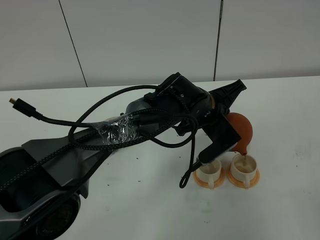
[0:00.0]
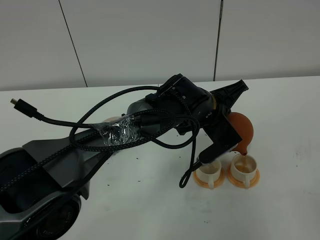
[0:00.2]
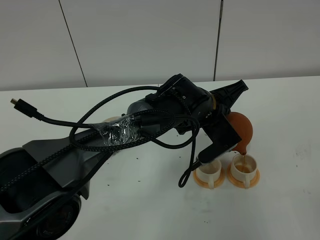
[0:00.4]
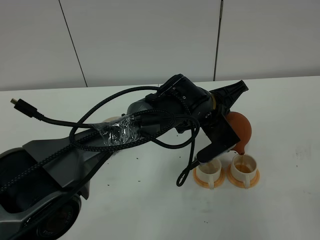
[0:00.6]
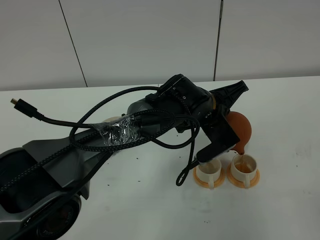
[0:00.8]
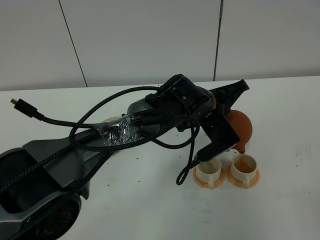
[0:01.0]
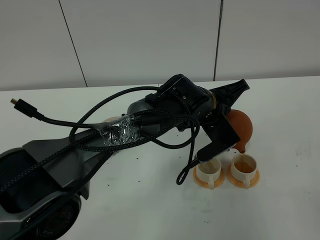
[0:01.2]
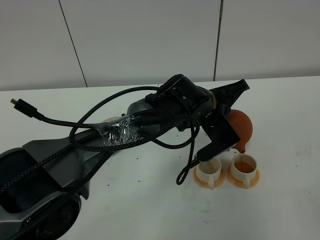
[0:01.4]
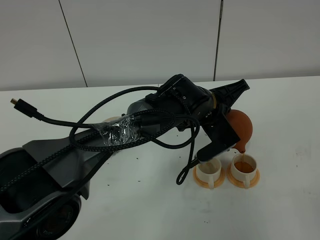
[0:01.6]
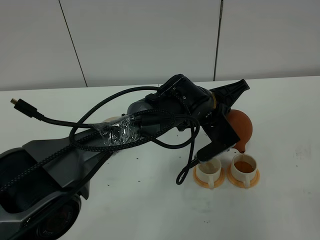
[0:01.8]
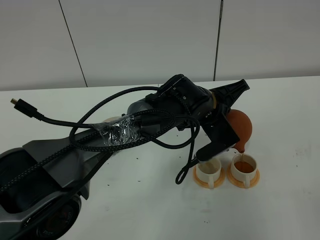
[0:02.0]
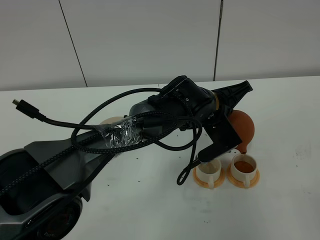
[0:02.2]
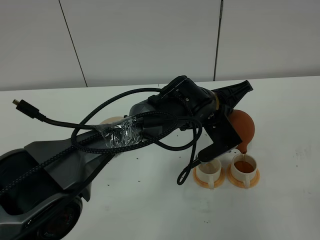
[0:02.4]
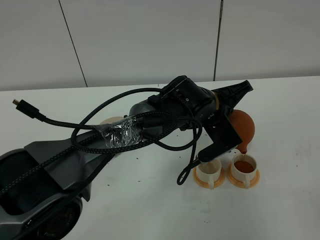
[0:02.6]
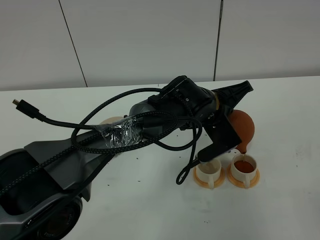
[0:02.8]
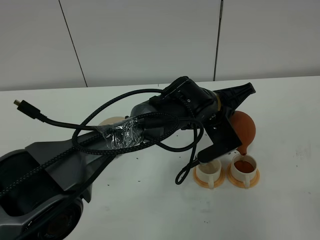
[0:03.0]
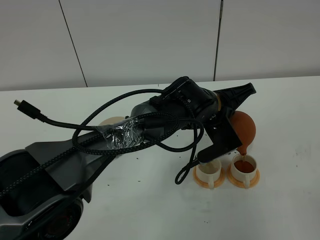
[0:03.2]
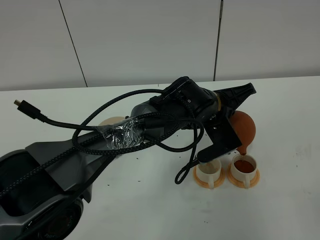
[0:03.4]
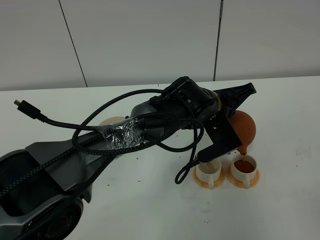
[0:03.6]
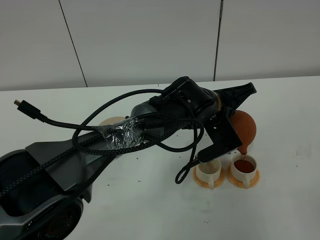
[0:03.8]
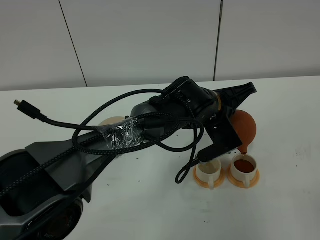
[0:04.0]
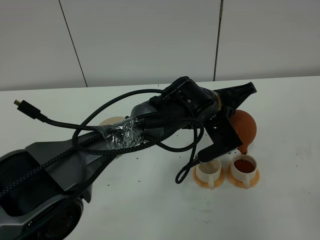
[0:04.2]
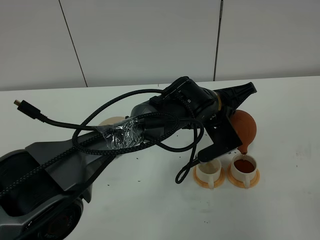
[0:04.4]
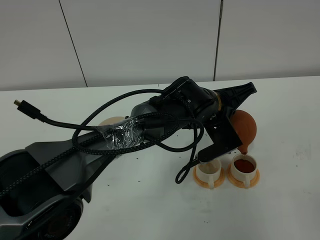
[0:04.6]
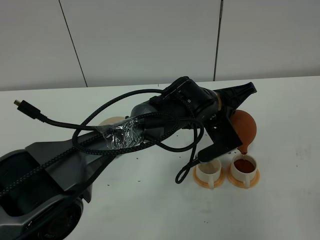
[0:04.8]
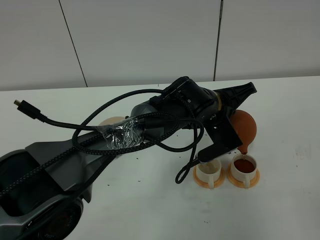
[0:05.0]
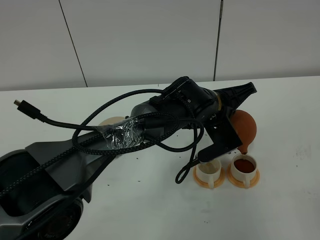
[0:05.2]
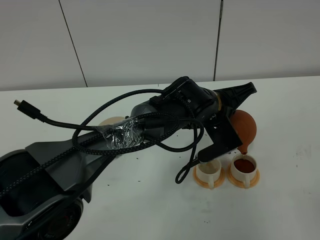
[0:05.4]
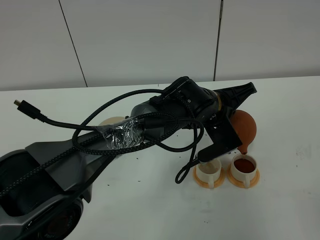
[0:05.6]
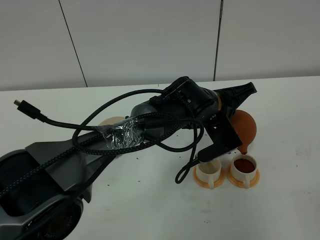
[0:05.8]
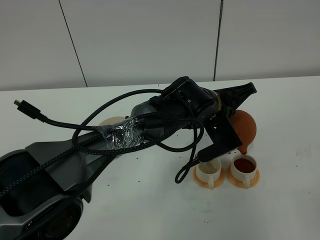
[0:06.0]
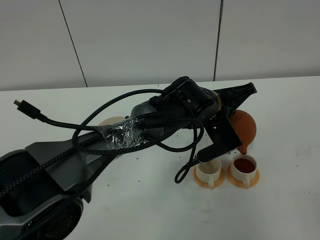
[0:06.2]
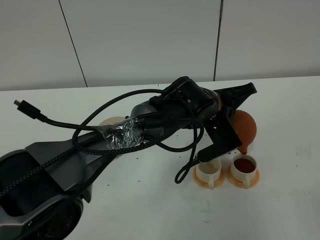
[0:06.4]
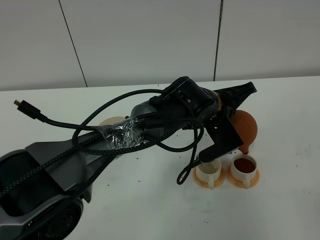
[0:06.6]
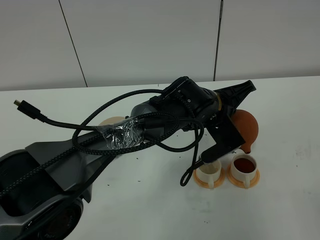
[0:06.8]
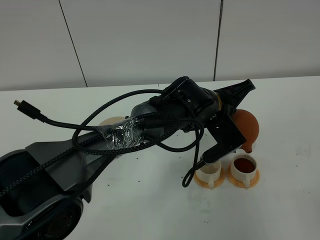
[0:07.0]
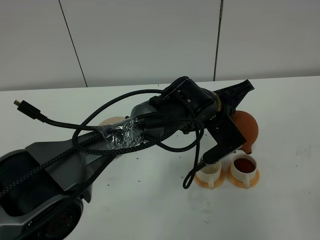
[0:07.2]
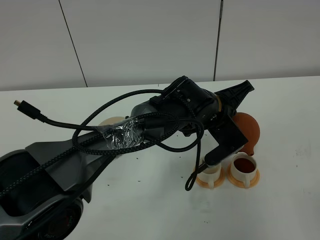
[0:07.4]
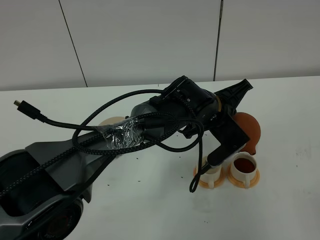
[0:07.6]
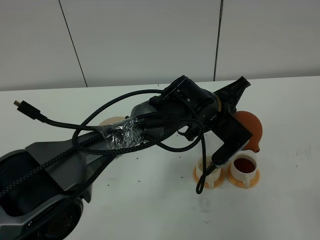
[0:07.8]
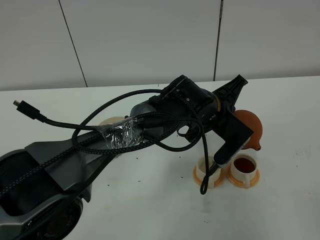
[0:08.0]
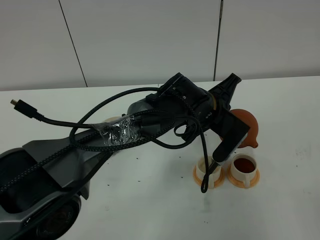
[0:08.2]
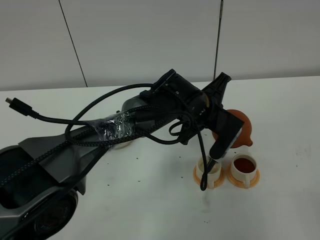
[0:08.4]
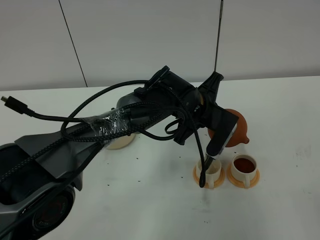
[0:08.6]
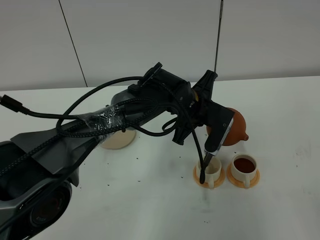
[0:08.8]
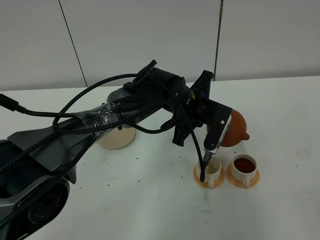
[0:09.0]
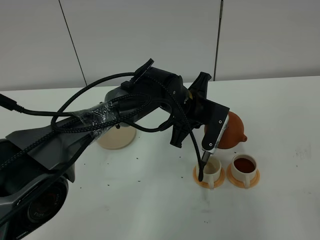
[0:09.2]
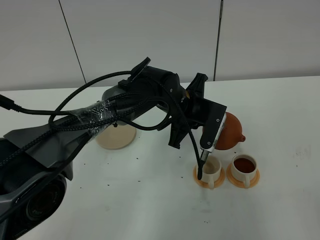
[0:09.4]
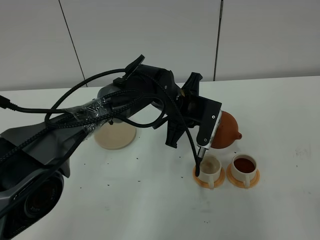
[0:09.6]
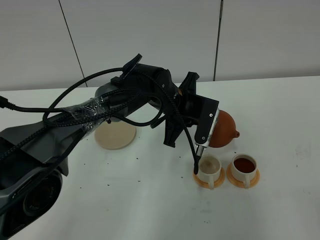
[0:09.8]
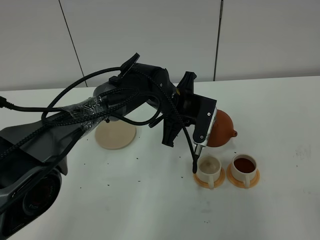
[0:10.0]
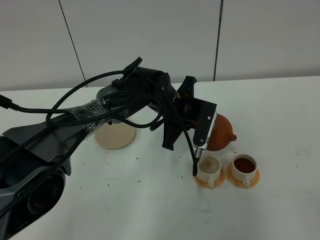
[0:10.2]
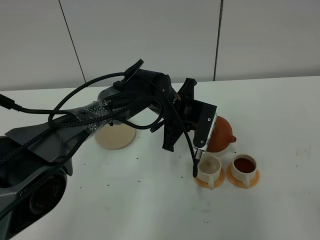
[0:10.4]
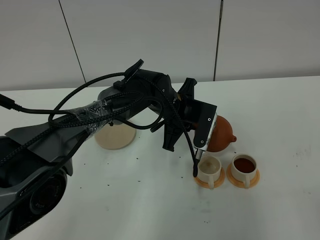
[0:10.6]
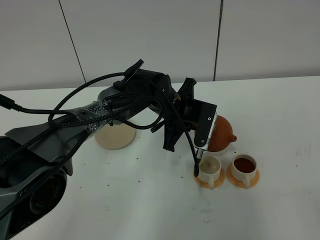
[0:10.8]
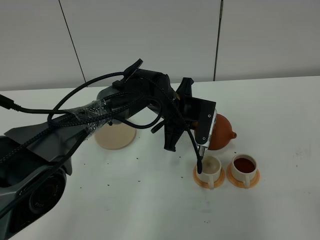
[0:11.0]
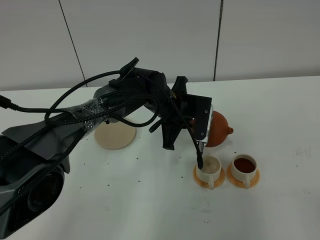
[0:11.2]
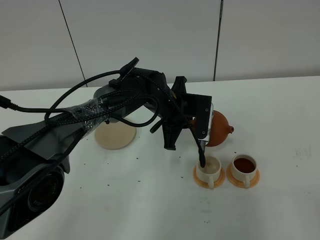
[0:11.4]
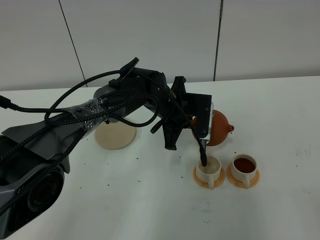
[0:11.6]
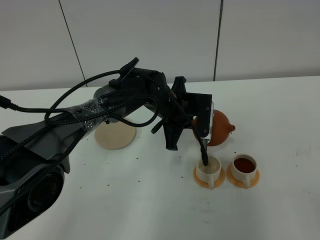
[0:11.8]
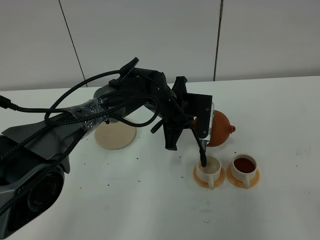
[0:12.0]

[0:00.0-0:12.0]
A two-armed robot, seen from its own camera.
Task of the whole recording: grasp the brown teapot and pour the tea into the two white teacups one by one, put the brown teapot back in its original place.
0:00.0 to 0:01.6: The grippers stay close to where they were, moving slightly.
0:01.6 to 0:03.0: Neither gripper changes place.
0:03.0 to 0:06.0: Both grippers stay put.
0:06.0 to 0:07.6: The grippers make only small movements.
0:07.6 to 0:09.0: The left gripper shifts by roughly 5 cm.
0:09.0 to 0:10.4: The grippers move only a little.
0:10.4 to 0:12.0: There are only small adjustments of the grippers.

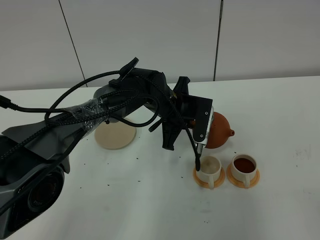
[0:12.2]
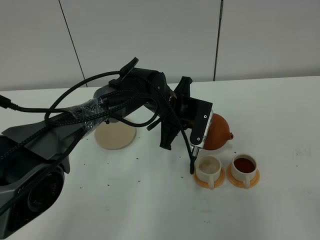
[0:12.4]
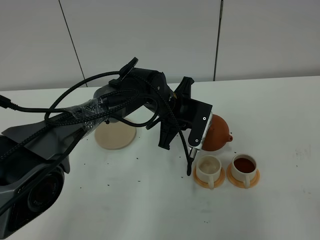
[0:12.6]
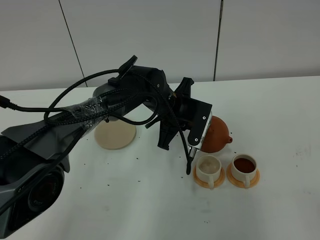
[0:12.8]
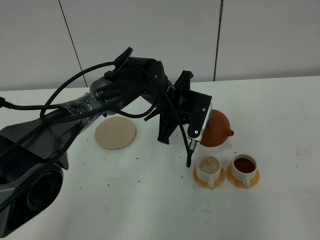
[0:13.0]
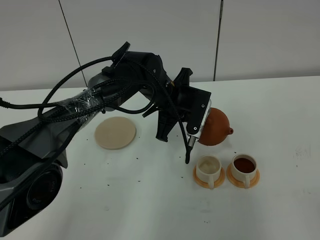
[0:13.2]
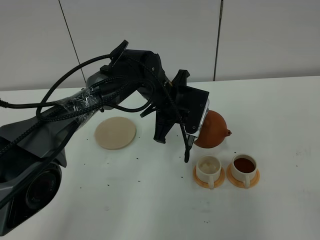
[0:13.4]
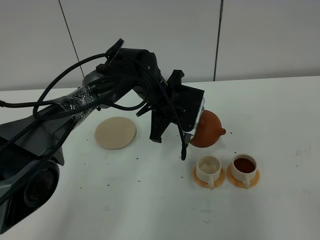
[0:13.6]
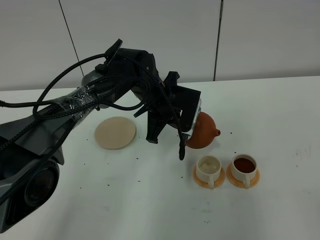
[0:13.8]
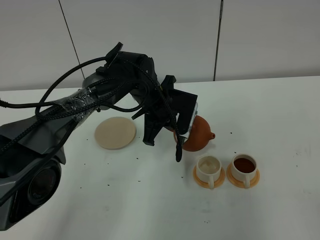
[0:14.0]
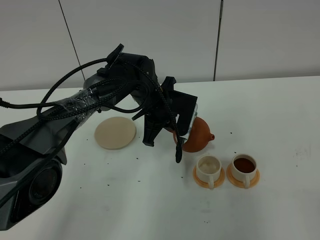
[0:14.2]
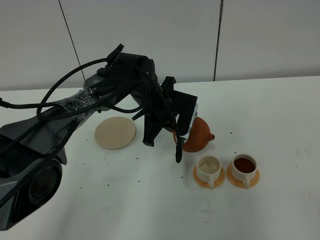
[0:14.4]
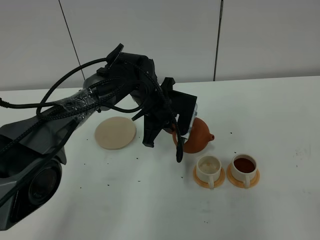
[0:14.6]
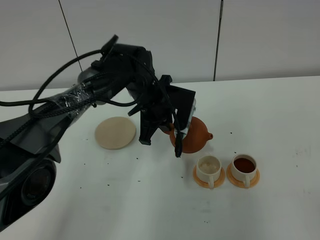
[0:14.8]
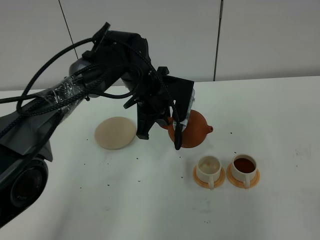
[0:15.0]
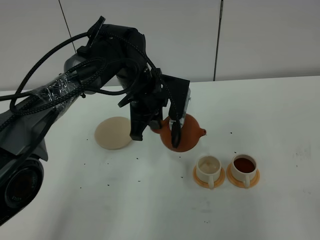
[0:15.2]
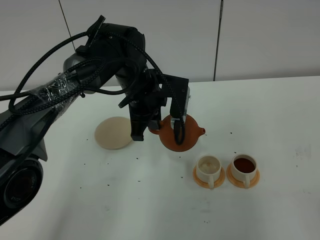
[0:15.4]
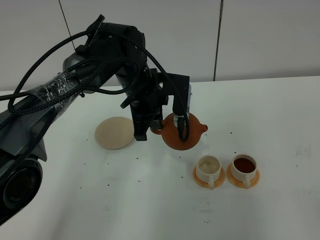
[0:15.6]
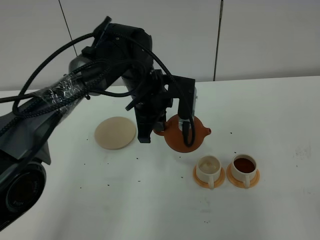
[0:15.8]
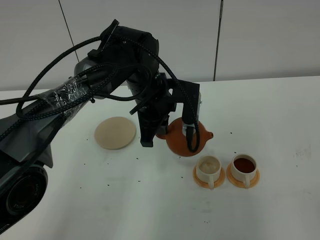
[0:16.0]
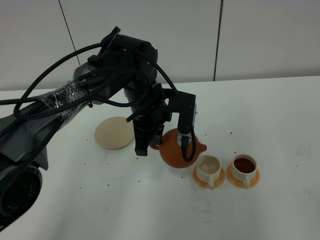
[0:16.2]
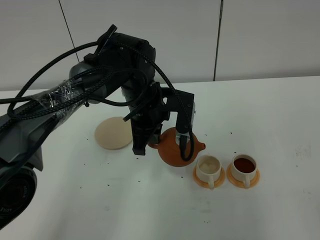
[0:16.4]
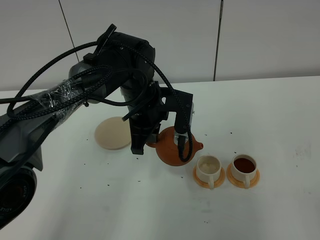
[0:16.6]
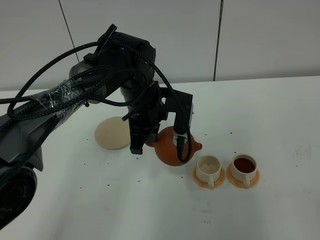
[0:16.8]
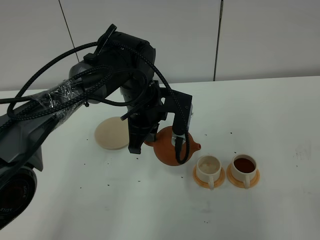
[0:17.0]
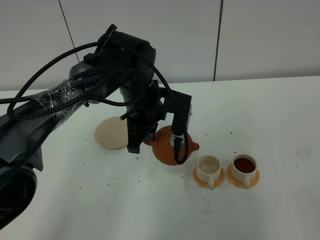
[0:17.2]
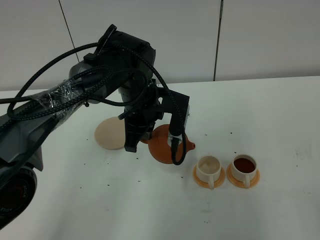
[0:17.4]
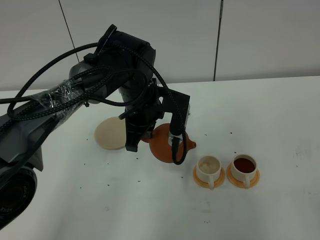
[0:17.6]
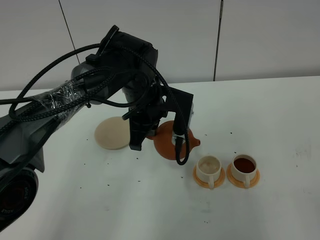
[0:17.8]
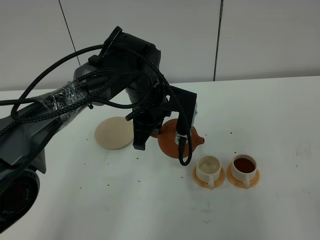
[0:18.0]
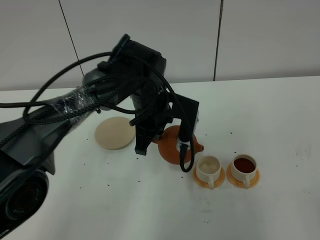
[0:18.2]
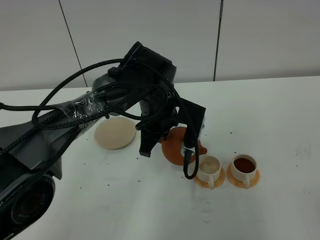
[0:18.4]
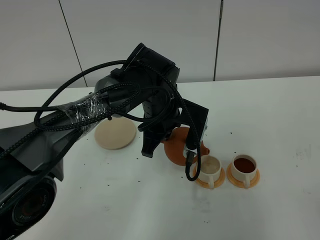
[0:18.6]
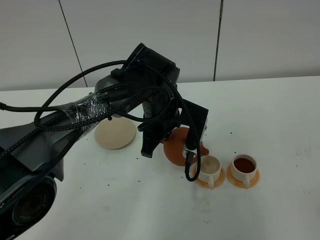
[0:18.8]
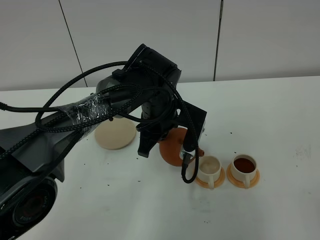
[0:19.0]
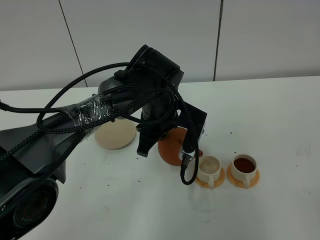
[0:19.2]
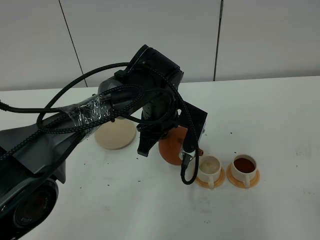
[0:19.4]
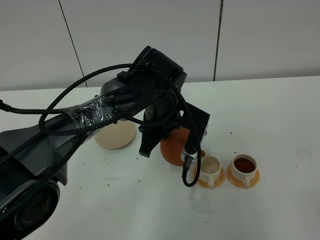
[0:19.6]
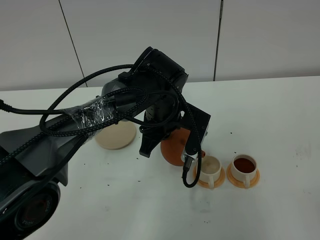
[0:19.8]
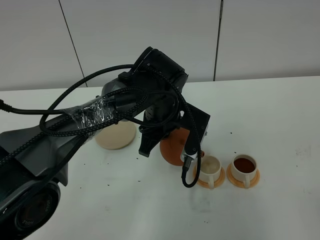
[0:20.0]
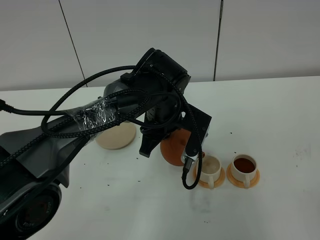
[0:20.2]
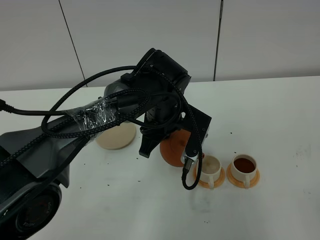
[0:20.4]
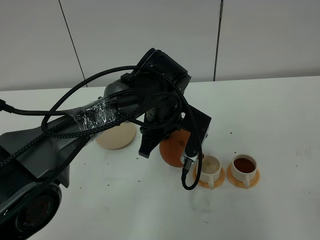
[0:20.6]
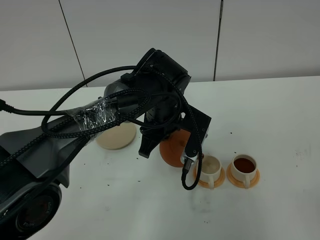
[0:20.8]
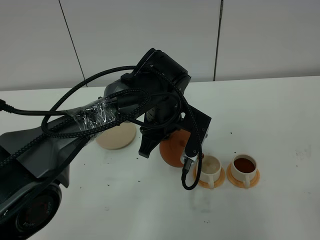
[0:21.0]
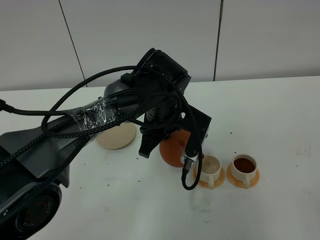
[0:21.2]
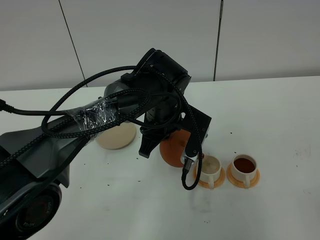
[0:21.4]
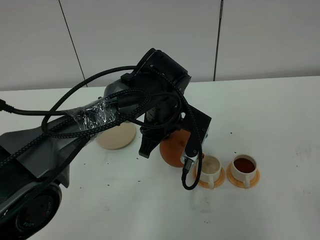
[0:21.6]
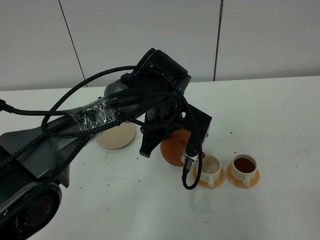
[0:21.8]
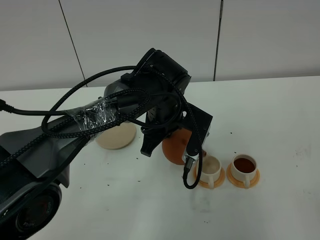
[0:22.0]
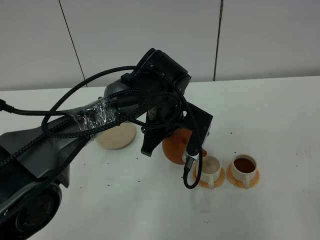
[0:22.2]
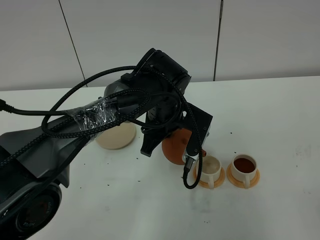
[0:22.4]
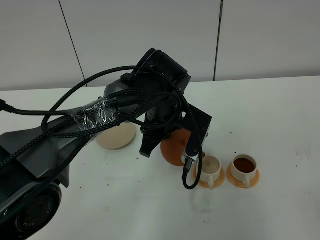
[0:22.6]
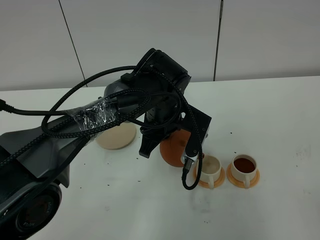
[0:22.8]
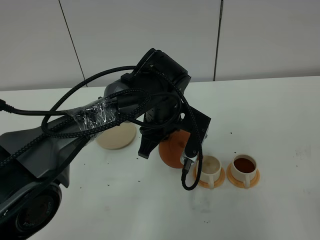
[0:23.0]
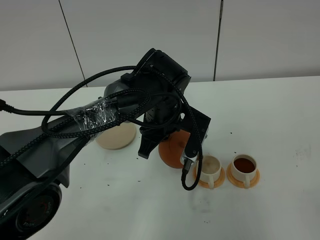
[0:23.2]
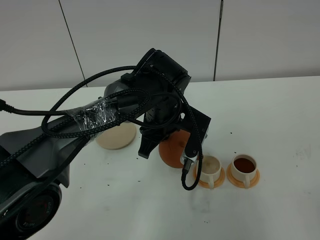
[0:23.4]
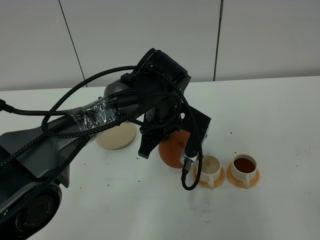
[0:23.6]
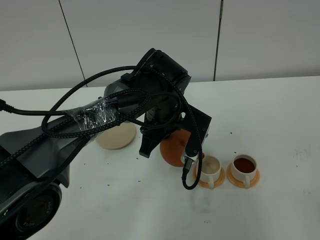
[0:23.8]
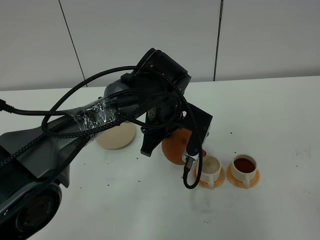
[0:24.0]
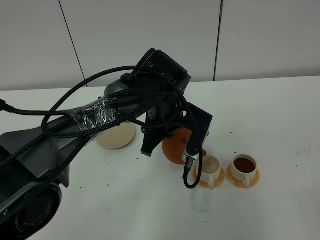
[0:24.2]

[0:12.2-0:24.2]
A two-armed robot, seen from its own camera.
Task of the whole recording: grasp the brown teapot and pour the tea into the two white teacups one by one, put the brown teapot back in its original place.
0:12.2 to 0:13.8: There are only small adjustments of the grippers.
0:13.8 to 0:15.2: The left gripper changes place by some 5 cm.
0:15.2 to 0:18.2: There are only small adjustments of the grippers.
0:18.2 to 0:19.8: The grippers make only small movements.
0:19.8 to 0:24.2: Both grippers stay put.
